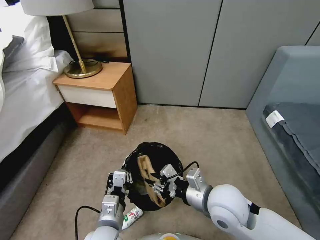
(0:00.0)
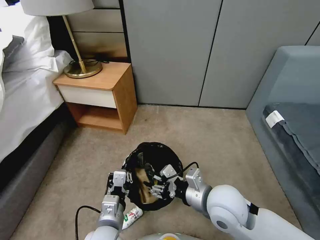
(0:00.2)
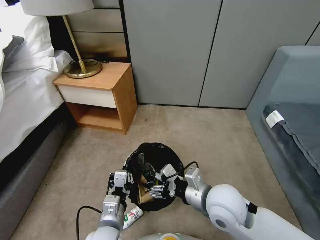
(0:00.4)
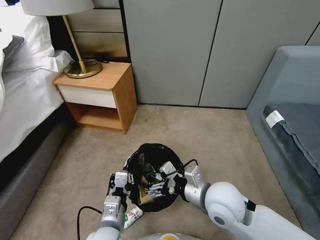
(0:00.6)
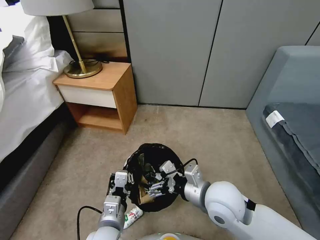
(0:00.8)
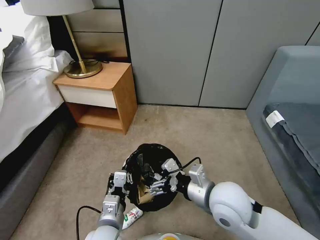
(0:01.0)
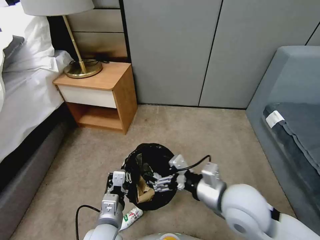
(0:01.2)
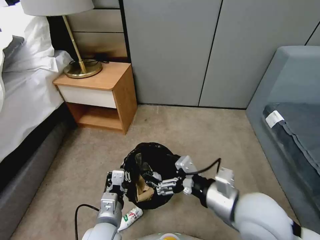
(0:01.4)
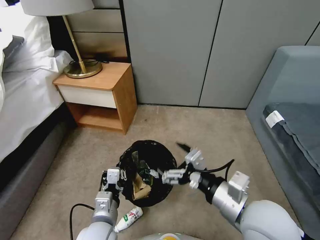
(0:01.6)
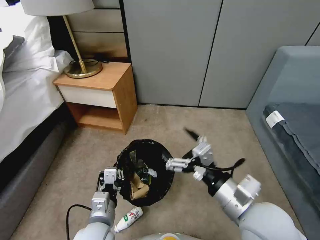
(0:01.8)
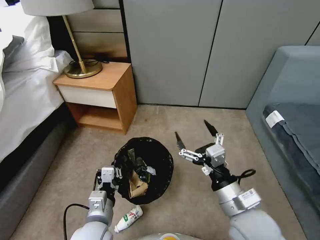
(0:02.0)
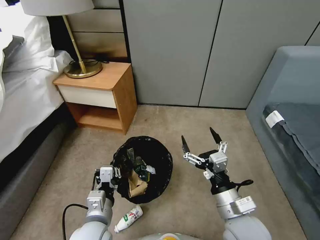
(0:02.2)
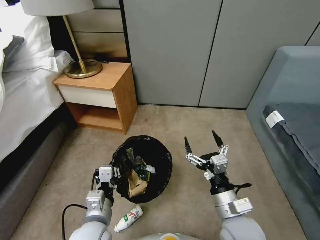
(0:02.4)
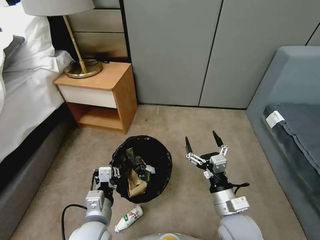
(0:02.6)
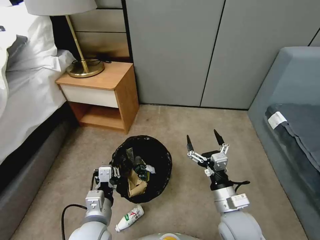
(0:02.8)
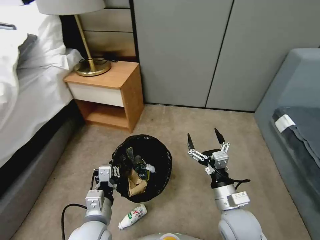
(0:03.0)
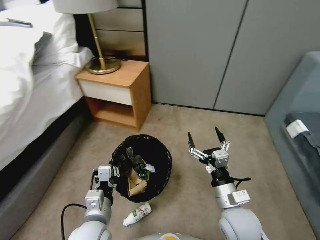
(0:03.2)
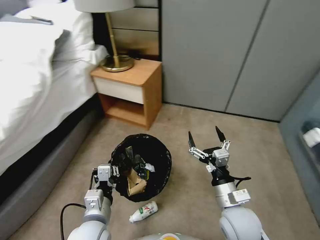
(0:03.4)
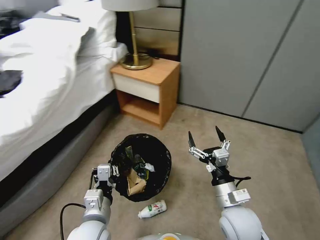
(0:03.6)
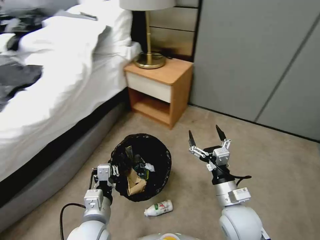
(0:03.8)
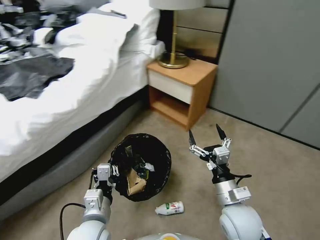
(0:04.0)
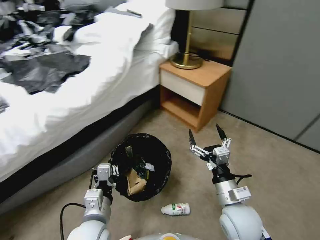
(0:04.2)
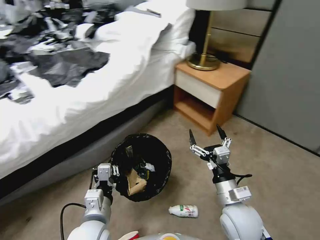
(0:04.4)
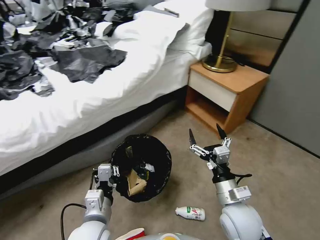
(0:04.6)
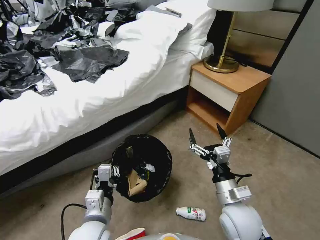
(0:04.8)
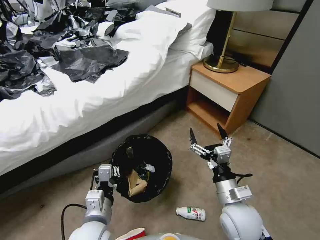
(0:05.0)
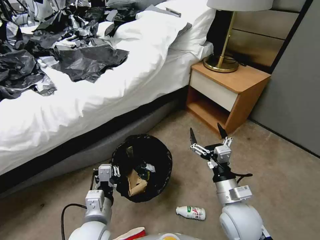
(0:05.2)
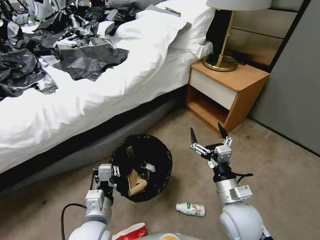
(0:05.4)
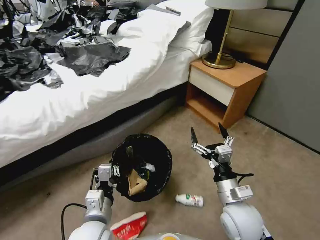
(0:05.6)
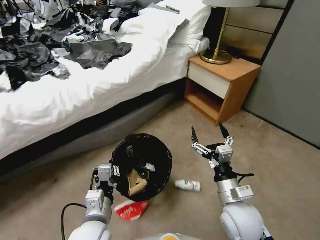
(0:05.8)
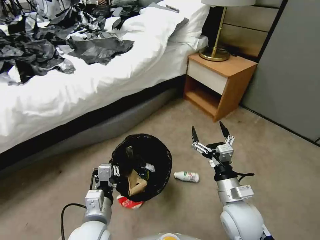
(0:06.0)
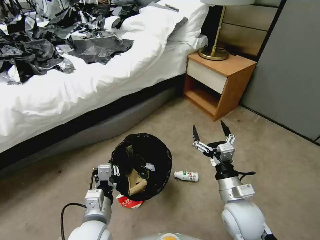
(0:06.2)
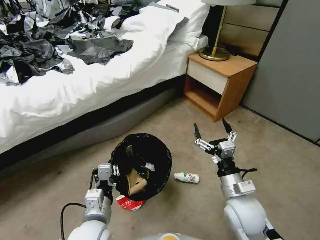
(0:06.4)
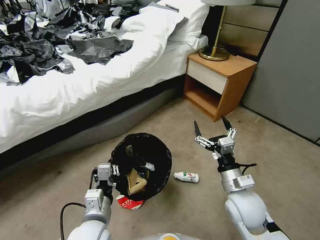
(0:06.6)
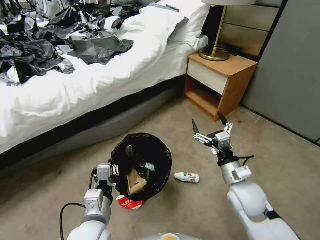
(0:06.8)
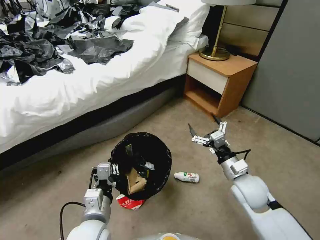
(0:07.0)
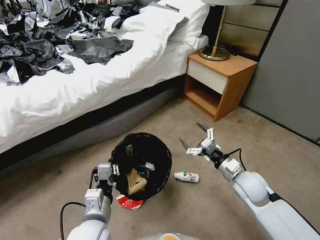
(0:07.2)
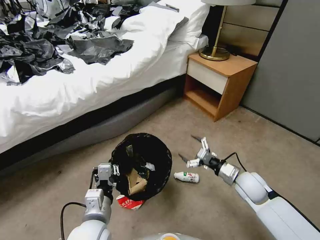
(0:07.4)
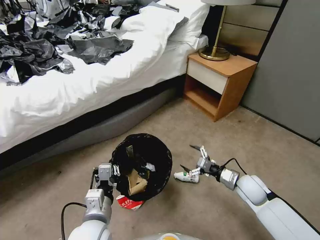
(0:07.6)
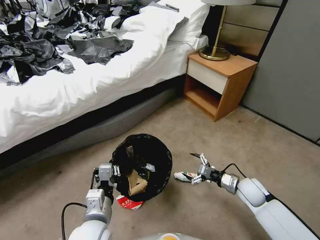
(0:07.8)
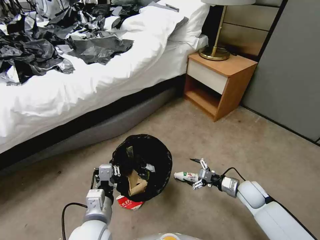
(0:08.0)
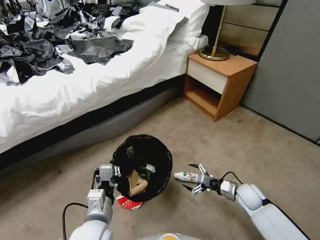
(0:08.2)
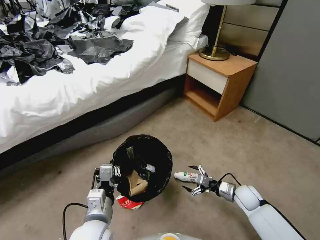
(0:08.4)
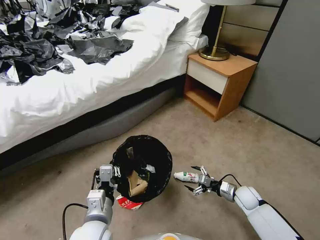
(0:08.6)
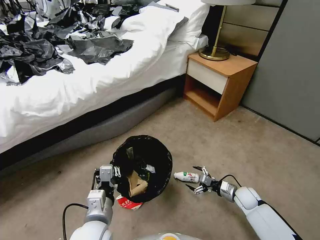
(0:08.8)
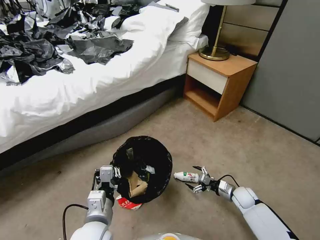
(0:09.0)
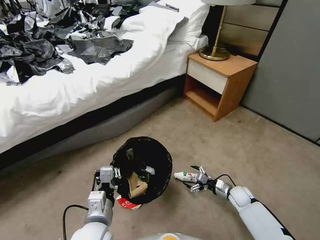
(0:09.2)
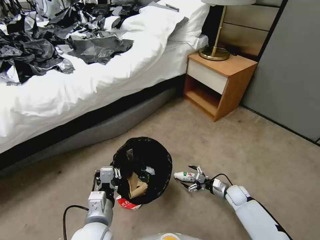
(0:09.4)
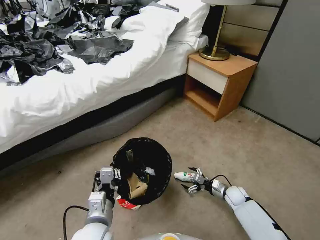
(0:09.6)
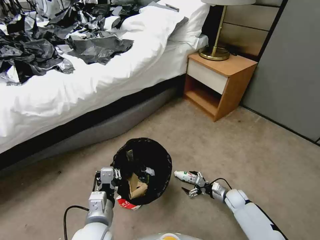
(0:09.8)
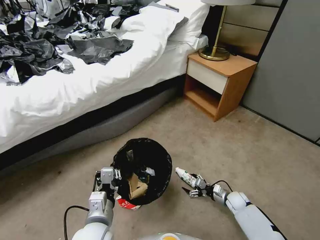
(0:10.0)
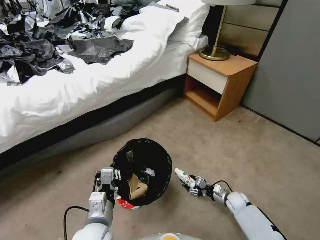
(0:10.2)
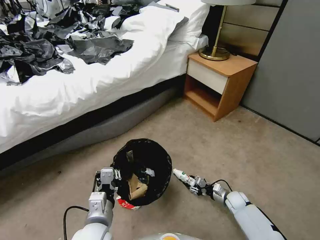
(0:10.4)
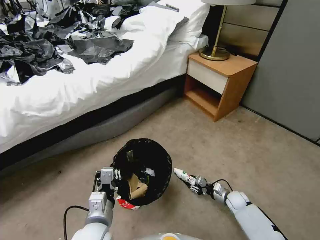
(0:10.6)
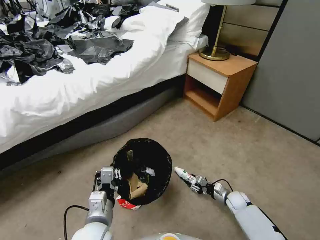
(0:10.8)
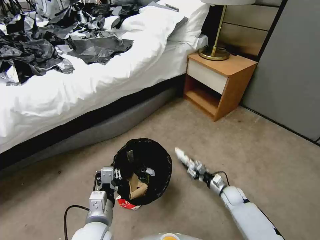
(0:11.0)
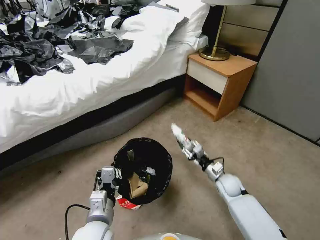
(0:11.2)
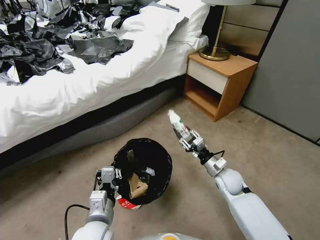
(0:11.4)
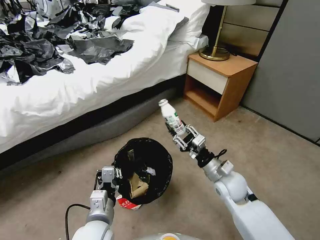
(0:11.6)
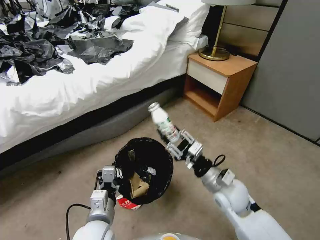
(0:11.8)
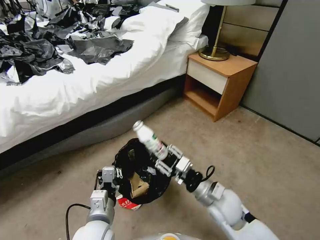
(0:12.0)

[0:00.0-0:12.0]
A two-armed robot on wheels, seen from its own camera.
Task of the whole recording: Pick up the trash bin, then pick up the garbage from the floor and place it into the trash bin.
0:00.0 to 0:01.6: The right gripper goes roughly 10 cm upward and backward, and opens.
0:01.6 to 0:03.0: The right gripper moves downward, about 15 cm.
0:06.0 to 0:07.6: The right gripper shifts about 20 cm to the right, forward and downward.
0:07.6 to 0:09.0: The right gripper shifts approximately 15 cm downward.
0:09.0 to 0:10.4: The right gripper heads downward, covering approximately 5 cm, and closes up.
0:10.4 to 0:12.0: The right gripper is displaced upward and to the left by roughly 30 cm.

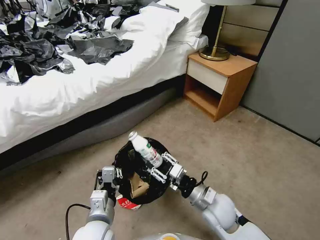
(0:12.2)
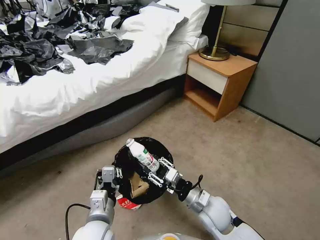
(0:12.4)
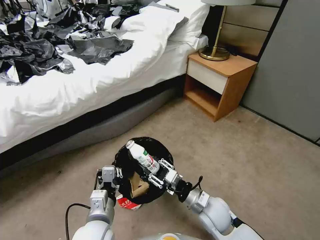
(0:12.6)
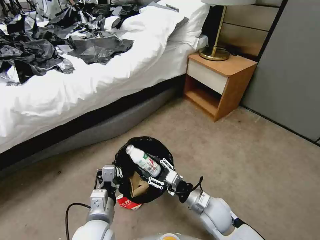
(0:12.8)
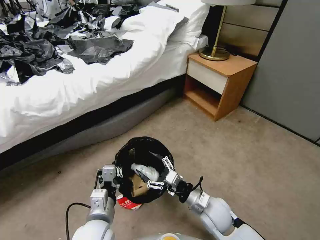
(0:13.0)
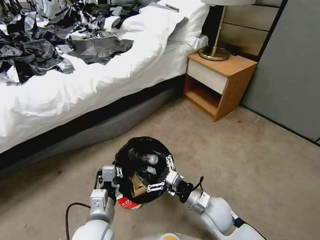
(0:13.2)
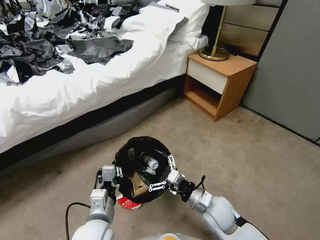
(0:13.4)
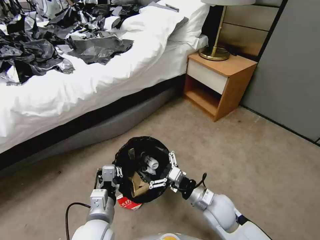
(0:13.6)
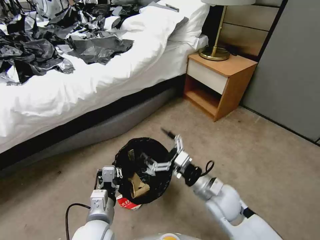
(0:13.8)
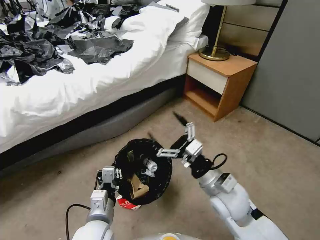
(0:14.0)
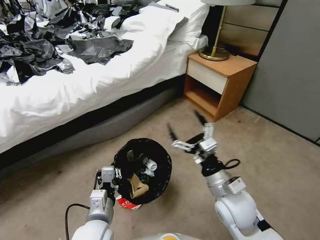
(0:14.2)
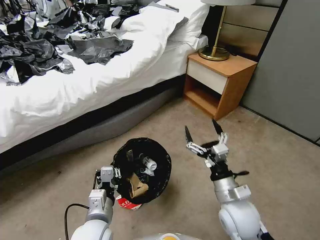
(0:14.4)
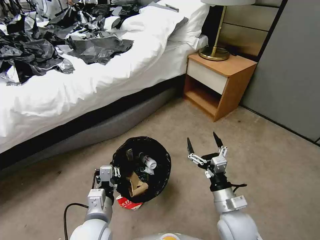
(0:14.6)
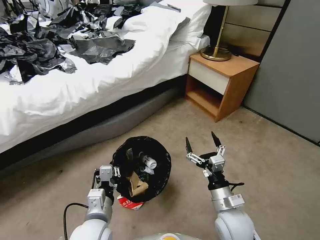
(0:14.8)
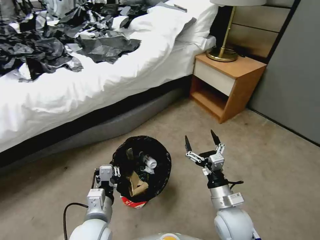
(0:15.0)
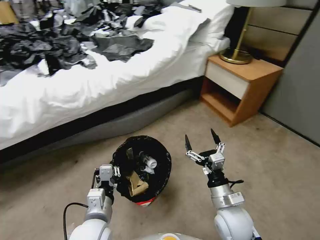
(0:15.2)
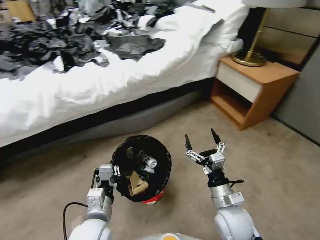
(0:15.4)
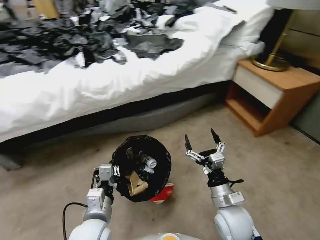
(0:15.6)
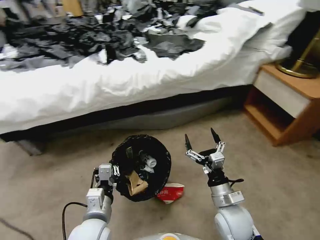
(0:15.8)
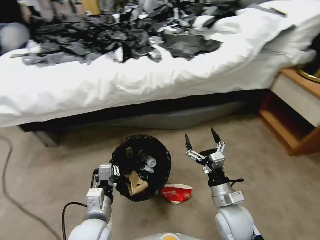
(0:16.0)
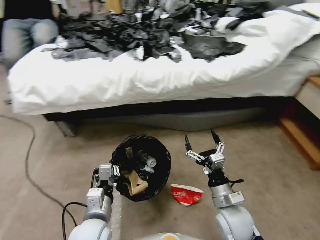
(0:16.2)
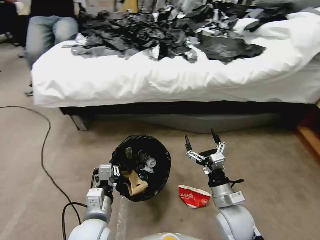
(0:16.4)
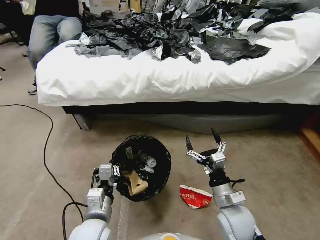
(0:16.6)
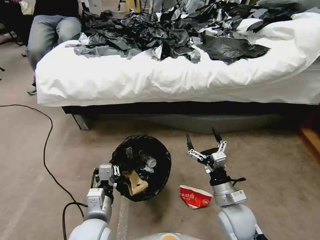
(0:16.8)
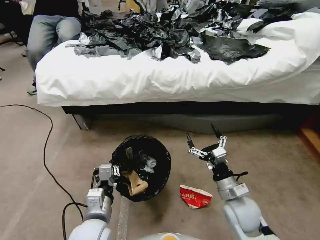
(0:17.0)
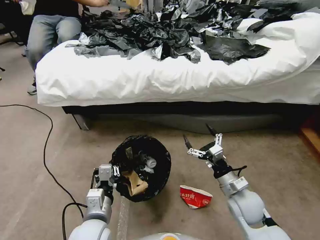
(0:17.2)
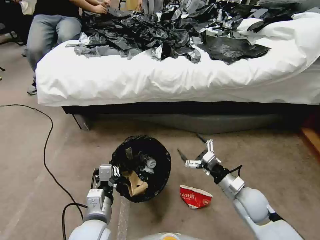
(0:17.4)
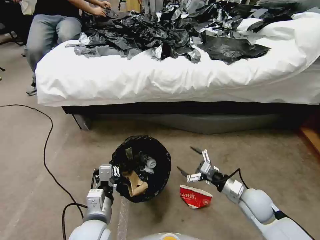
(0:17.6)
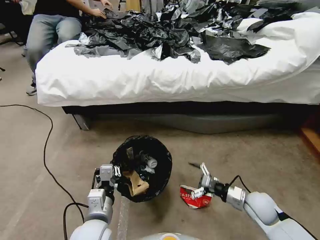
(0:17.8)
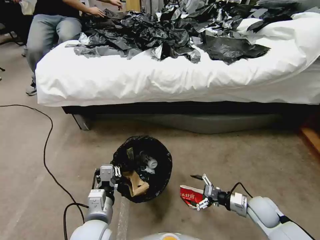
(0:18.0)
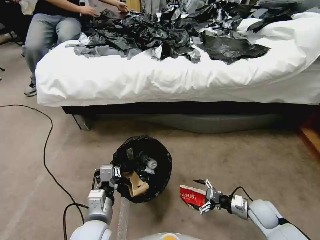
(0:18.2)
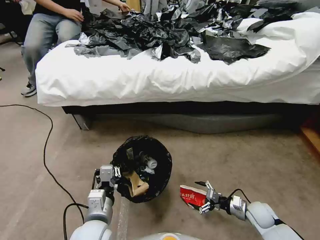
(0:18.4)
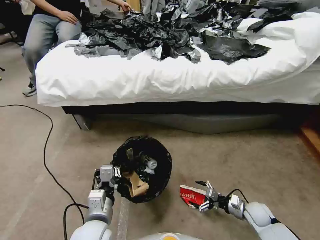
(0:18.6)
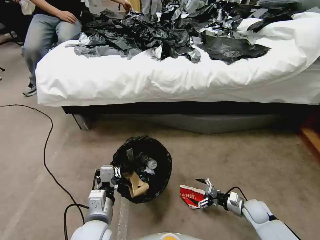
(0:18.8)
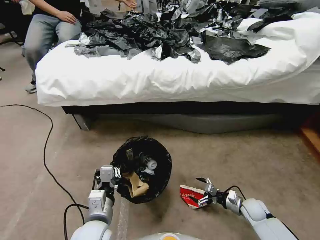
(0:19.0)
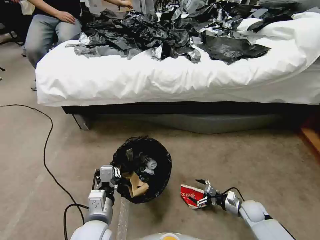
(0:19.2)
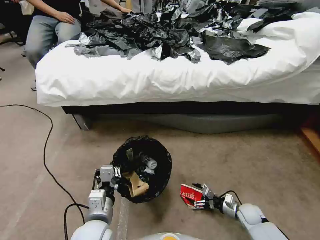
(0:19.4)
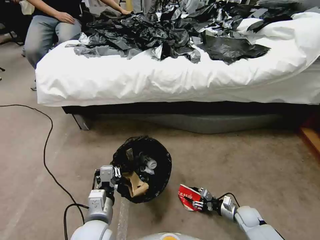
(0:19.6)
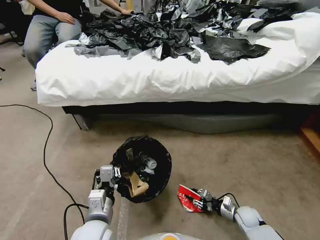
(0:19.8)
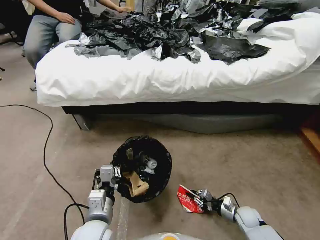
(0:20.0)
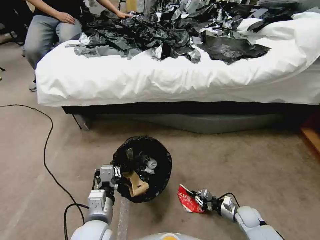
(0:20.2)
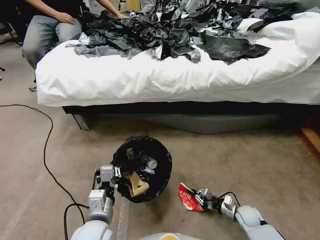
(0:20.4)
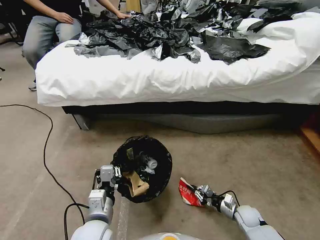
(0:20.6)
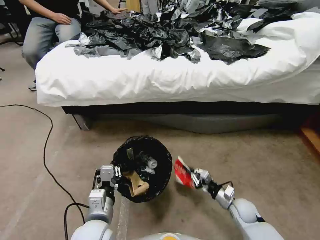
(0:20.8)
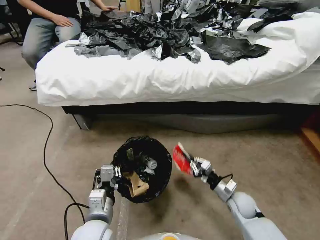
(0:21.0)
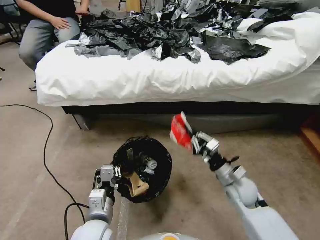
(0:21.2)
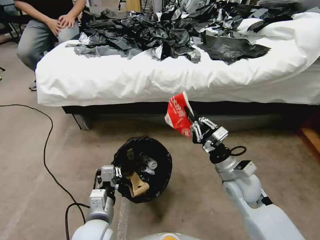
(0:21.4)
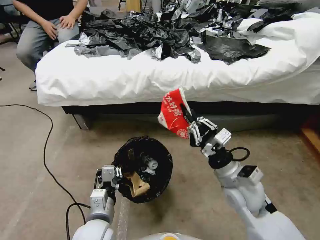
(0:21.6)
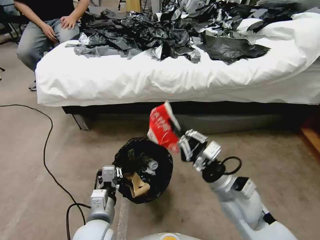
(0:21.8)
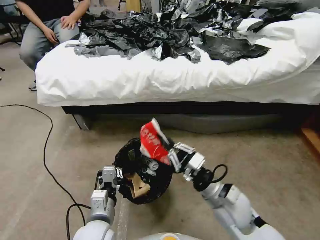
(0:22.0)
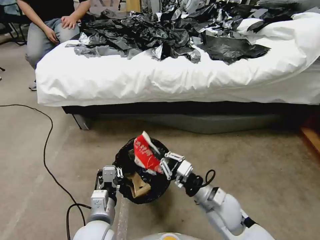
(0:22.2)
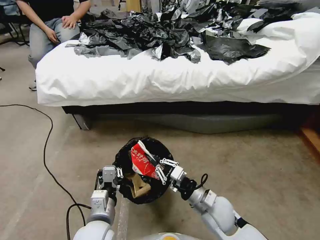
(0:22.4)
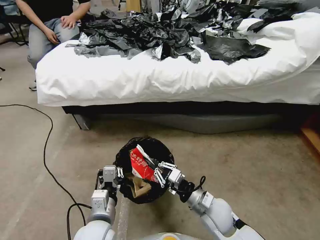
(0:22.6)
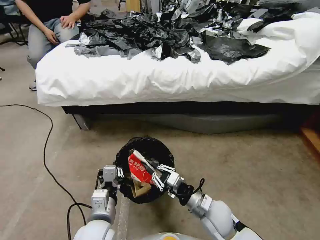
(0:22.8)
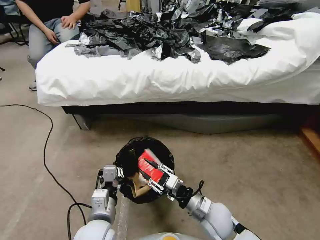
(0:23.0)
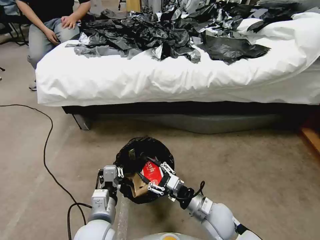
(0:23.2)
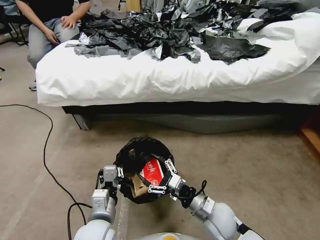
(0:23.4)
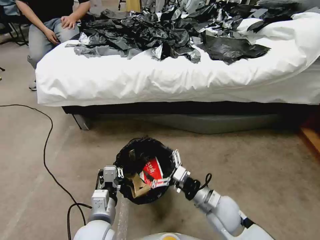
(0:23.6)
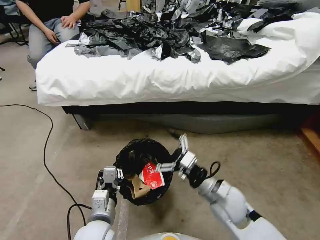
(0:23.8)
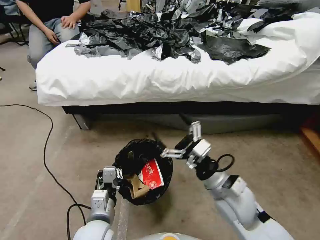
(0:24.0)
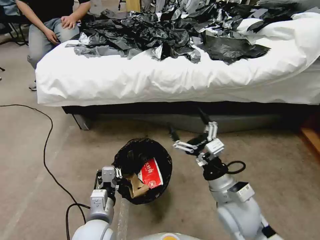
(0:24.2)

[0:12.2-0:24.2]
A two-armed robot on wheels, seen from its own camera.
Task of the whole recording: Pick up the trash bin, then pick up the garbage from the floor and place it into the trash bin.
0:12.2 to 0:13.8: The right gripper opens.
0:13.8 to 0:15.2: The right gripper shifts by approximately 5 cm.
0:16.6 to 0:18.2: The right gripper travels to the right and downward by about 20 cm.
0:18.2 to 0:19.8: The right gripper travels downward by some 10 cm, and closes its fingers.
0:19.8 to 0:21.2: The right gripper heads upward and to the left, covering some 20 cm, and closes up.
0:21.2 to 0:22.6: The right gripper shifts roughly 10 cm to the left and backward, and moves some 10 cm upward and comes back.
0:22.6 to 0:24.2: The right gripper shifts roughly 10 cm upward, and opens its fingers.
